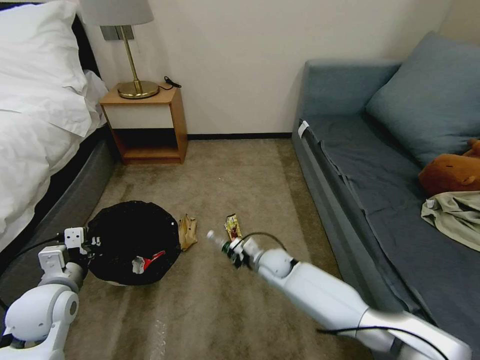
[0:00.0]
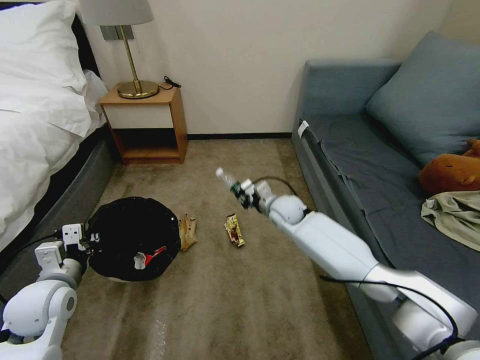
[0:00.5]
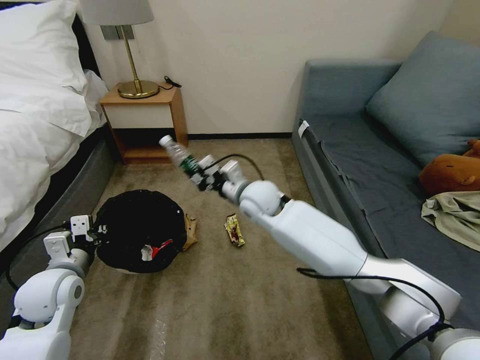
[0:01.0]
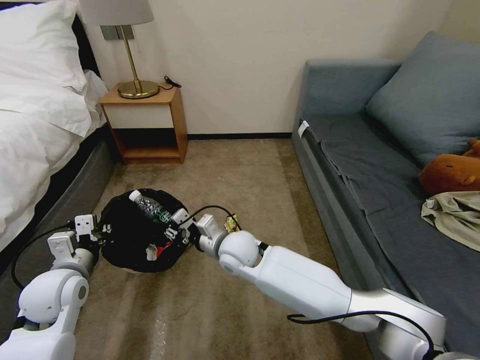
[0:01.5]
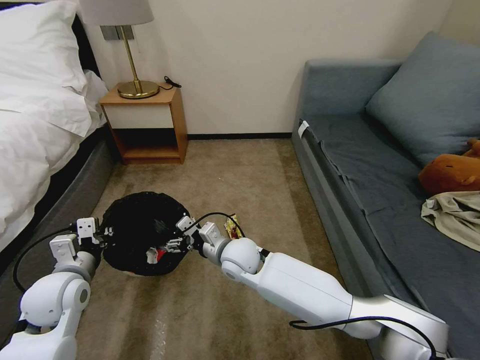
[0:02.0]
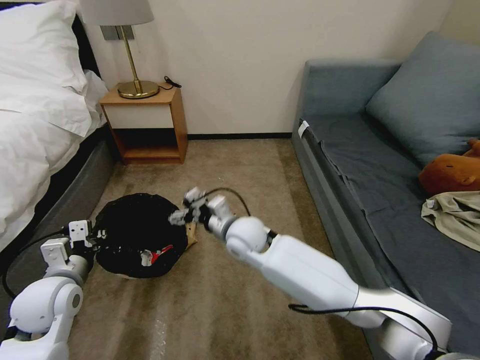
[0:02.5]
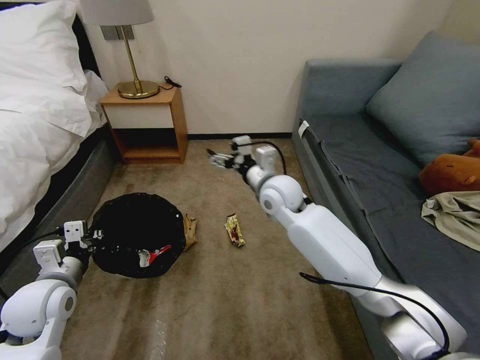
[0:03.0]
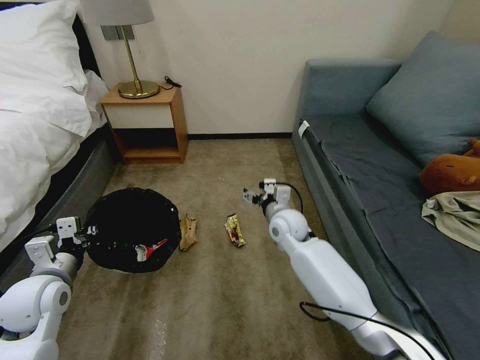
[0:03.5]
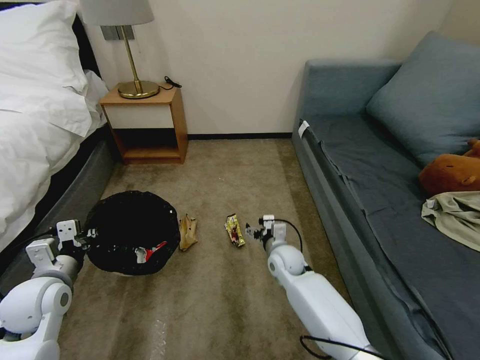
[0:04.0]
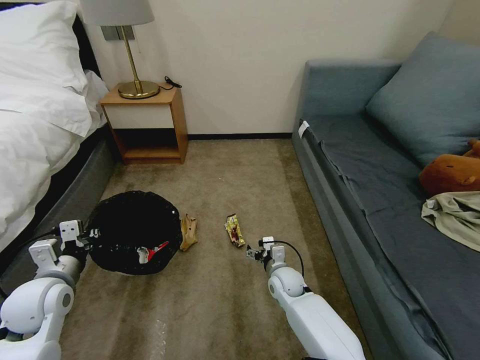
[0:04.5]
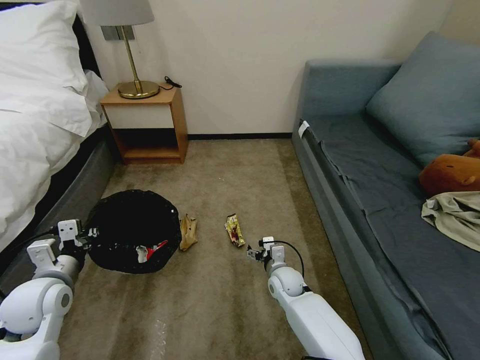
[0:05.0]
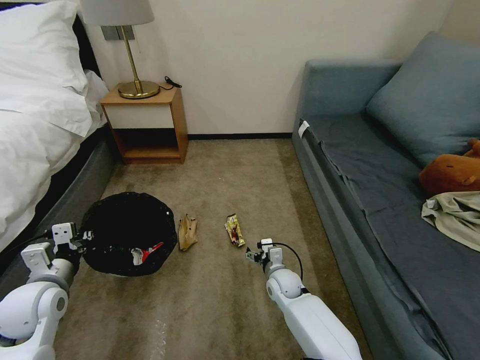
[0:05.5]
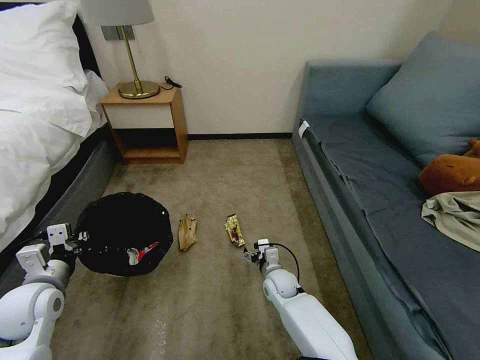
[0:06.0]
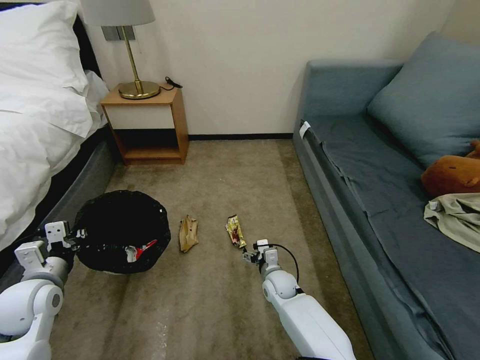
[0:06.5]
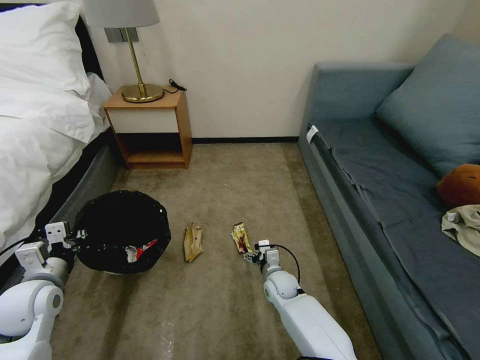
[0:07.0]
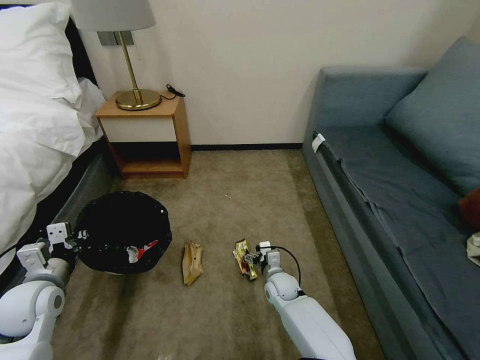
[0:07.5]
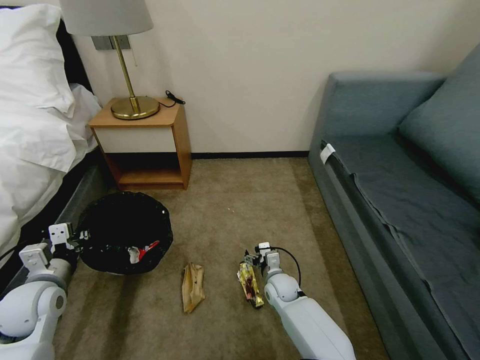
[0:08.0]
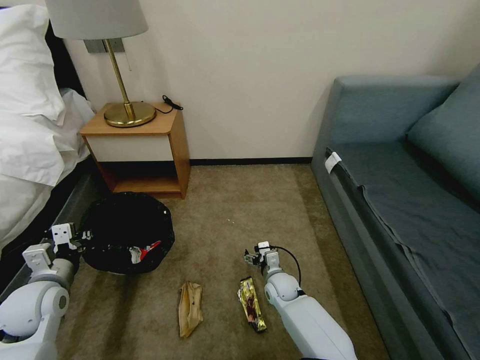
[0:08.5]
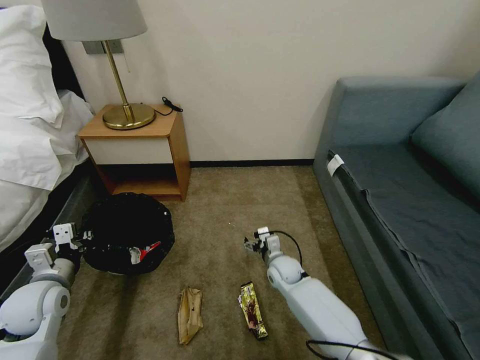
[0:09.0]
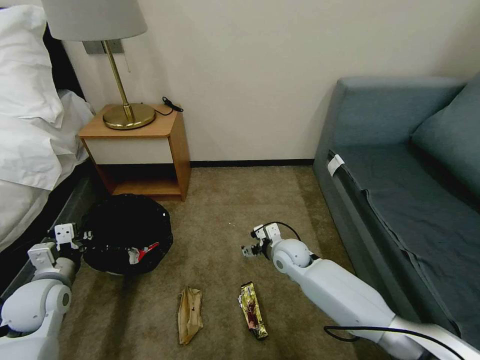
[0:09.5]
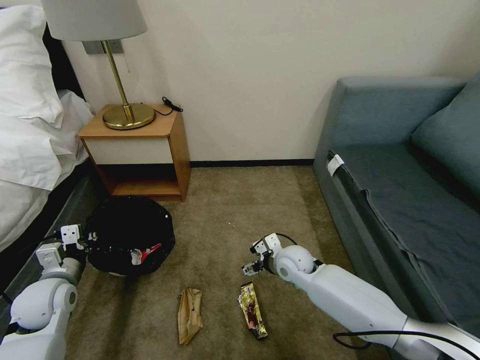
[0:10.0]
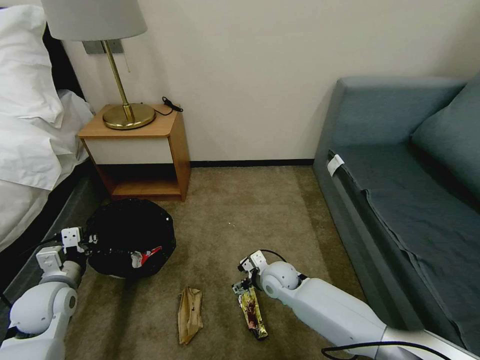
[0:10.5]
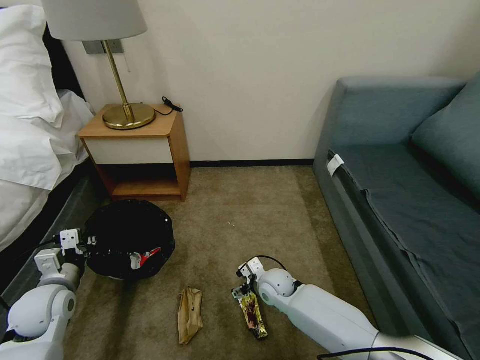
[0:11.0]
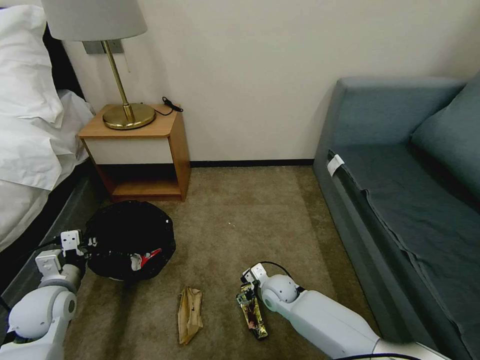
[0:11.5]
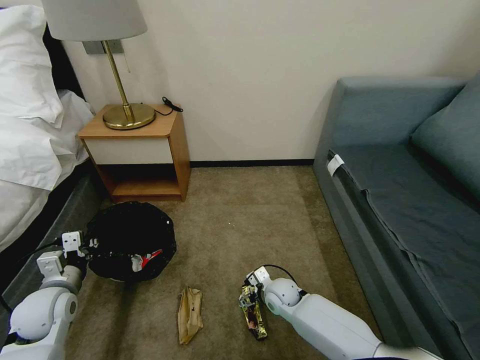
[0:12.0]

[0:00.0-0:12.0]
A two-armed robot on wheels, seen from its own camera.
Task of the whole recording: Pick up the trash bin, then pick up the garbage on the floor and place it into the trash bin.
0:00.0 to 0:02.0: The right gripper moves upward and to the left, about 15 cm, and opens its fingers.
0:02.0 to 0:04.0: The right gripper shifts approximately 15 cm to the right and downward.
0:04.0 to 0:06.0: The right gripper shifts roughly 5 cm downward.
0:08.0 to 0:10.0: The right gripper travels upward by approximately 10 cm.
0:10.0 to 0:12.0: The right gripper is displaced downward by approximately 10 cm.

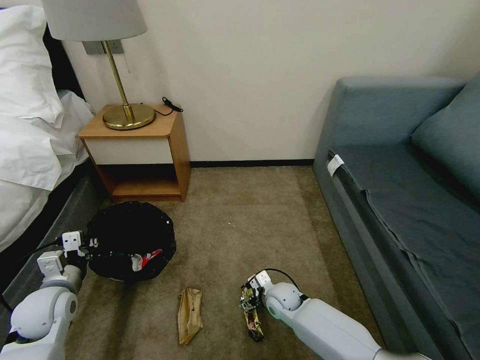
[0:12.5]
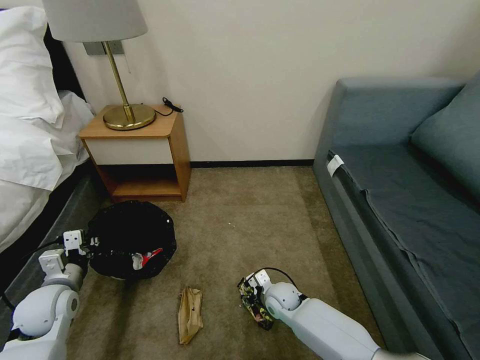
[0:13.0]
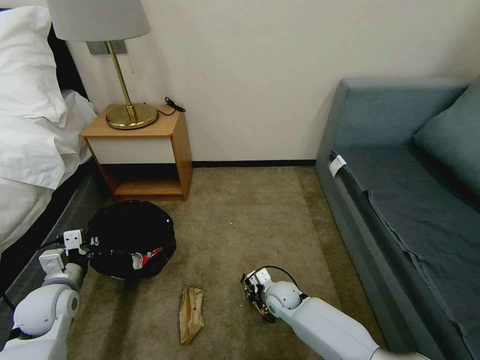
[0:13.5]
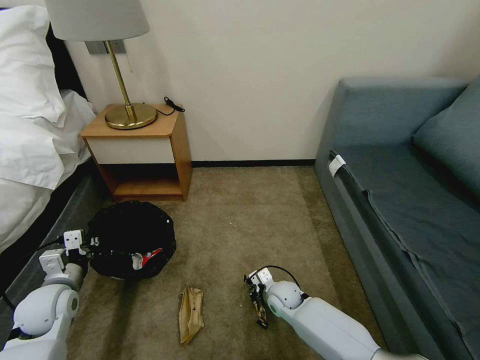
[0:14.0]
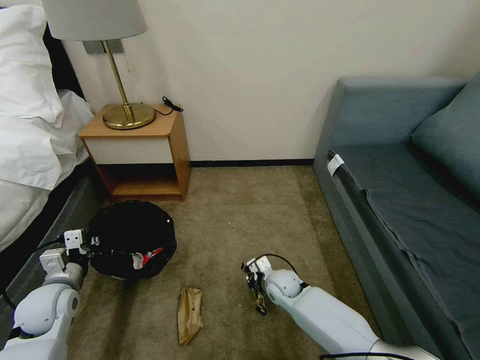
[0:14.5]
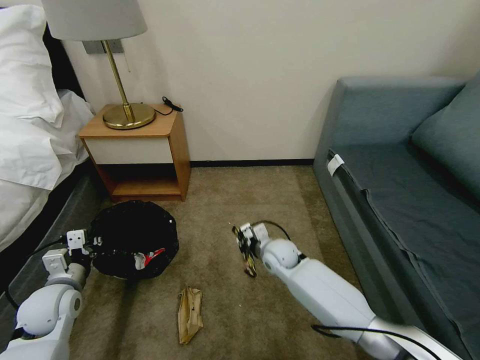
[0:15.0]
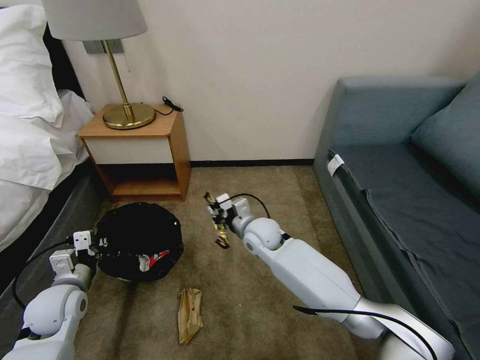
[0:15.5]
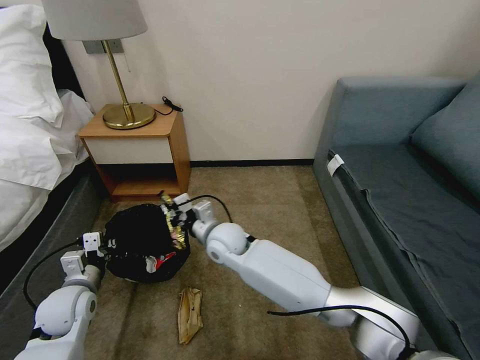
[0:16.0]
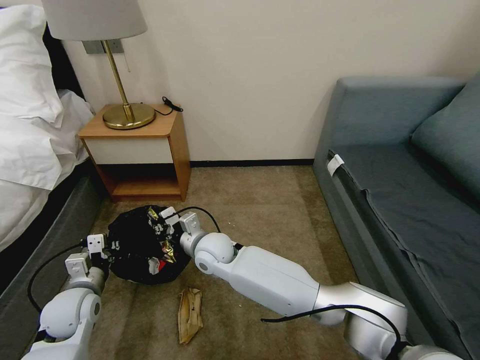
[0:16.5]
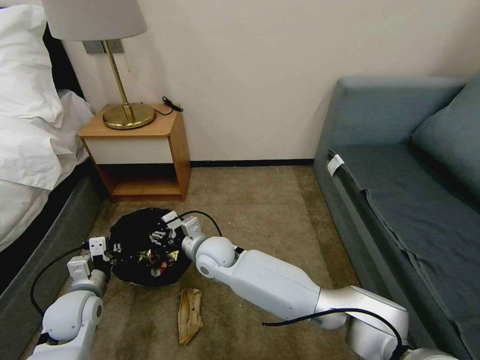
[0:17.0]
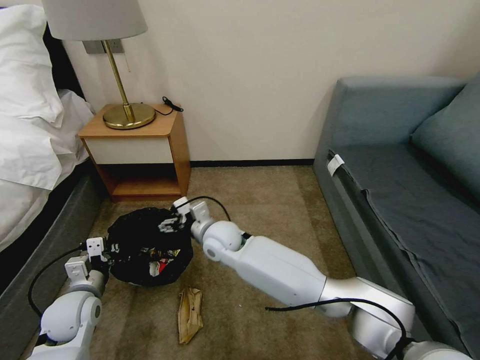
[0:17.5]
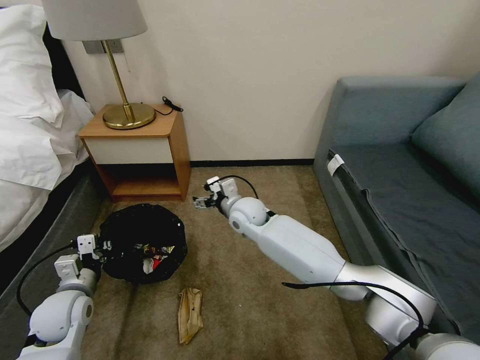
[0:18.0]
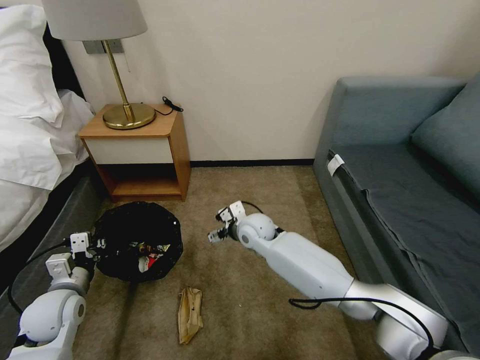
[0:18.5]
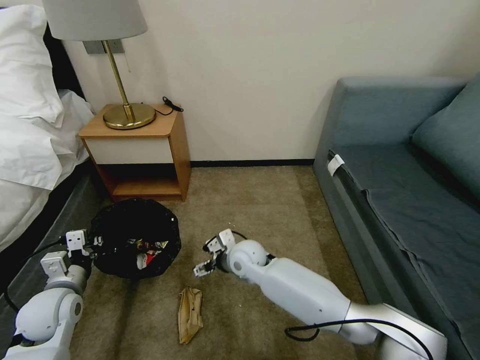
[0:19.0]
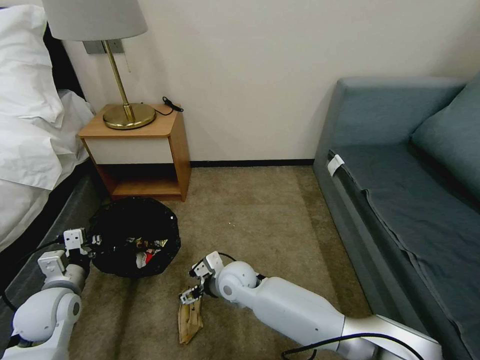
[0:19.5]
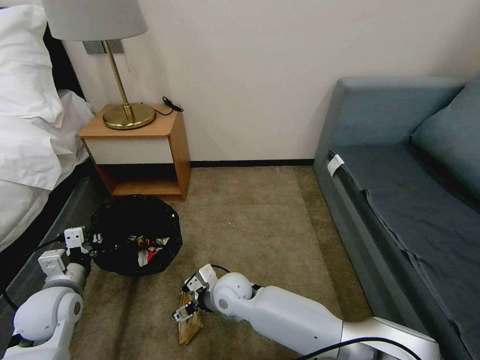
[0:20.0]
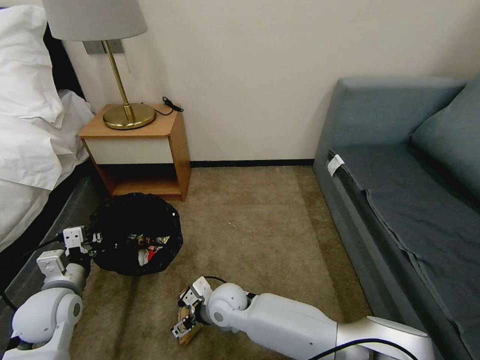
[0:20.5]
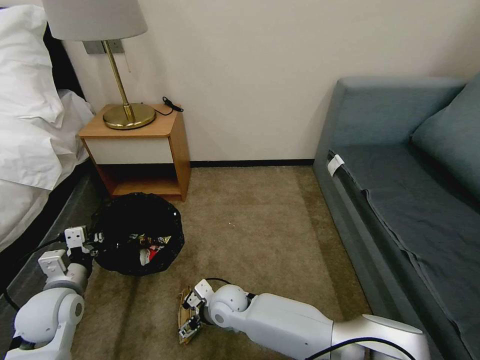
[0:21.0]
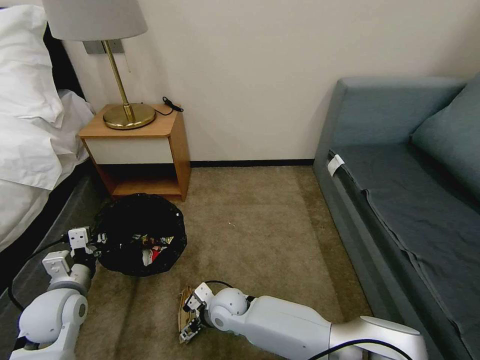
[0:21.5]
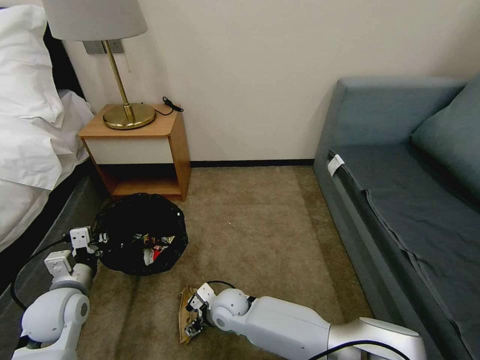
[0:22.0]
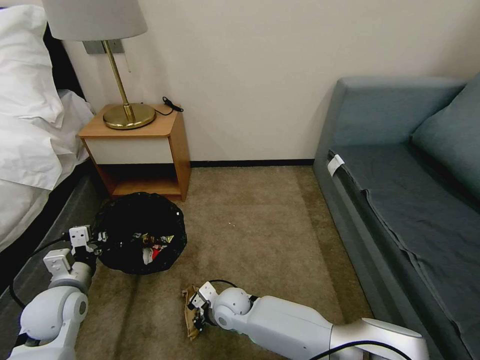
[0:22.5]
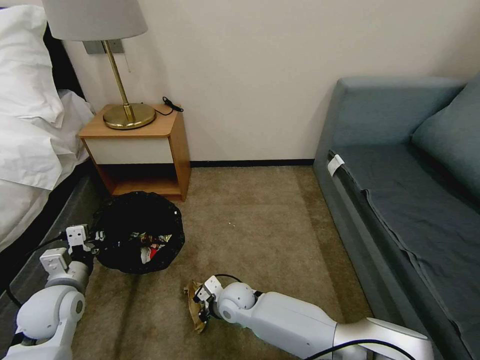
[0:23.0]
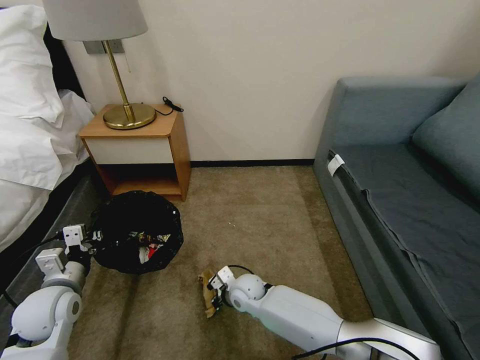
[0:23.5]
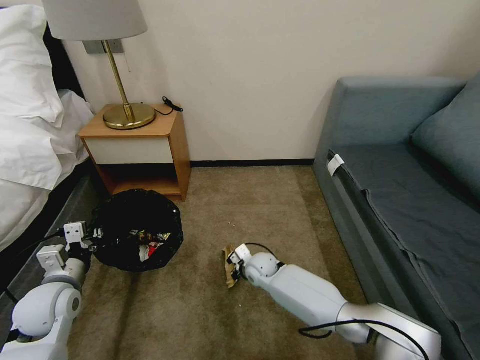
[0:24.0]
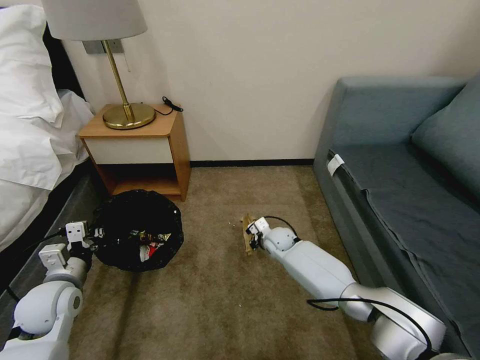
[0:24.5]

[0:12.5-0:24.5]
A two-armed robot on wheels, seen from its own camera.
Task of the whole recording: Pick up the trash bin, then pick up the garbage on the floor and place it into the trash bin.
0:12.5 to 0:14.5: The right gripper closes.
0:14.5 to 0:16.5: The right gripper is displaced to the left and upward by approximately 25 cm.
0:16.5 to 0:18.5: The right gripper moves to the right and forward, some 15 cm, and opens.
0:18.5 to 0:20.5: The right gripper moves backward, downward and to the left, approximately 20 cm.
0:20.5 to 0:22.5: The right gripper closes.
0:22.5 to 0:24.5: The right gripper is displaced forward and to the right by some 25 cm.

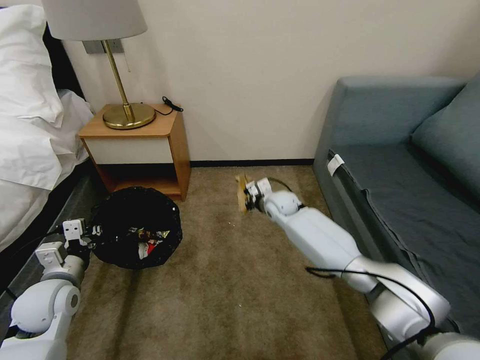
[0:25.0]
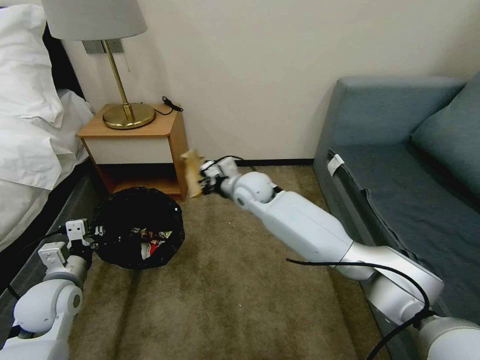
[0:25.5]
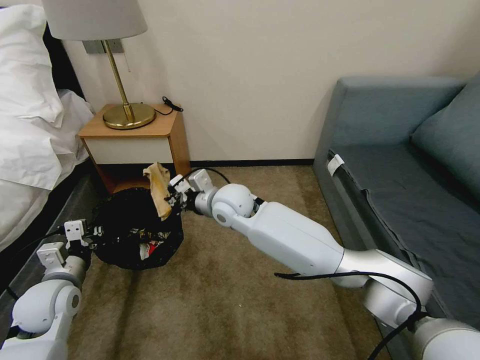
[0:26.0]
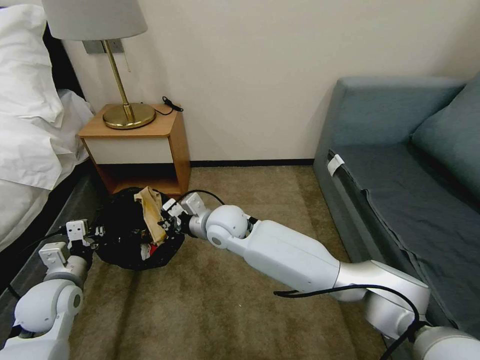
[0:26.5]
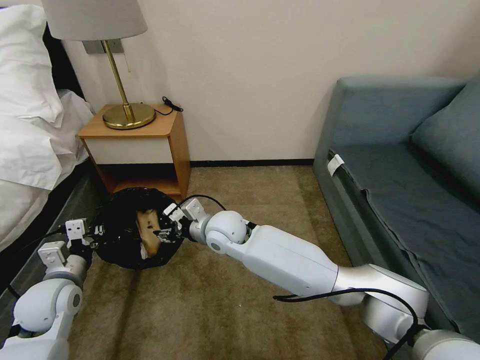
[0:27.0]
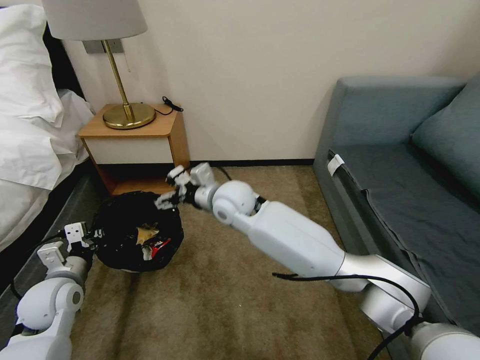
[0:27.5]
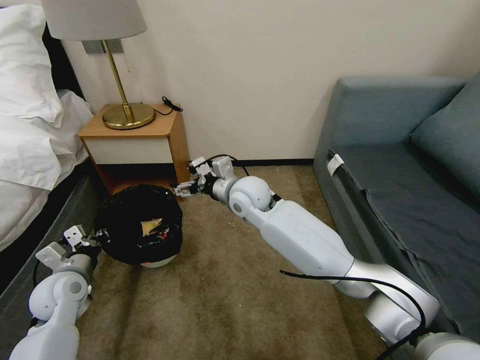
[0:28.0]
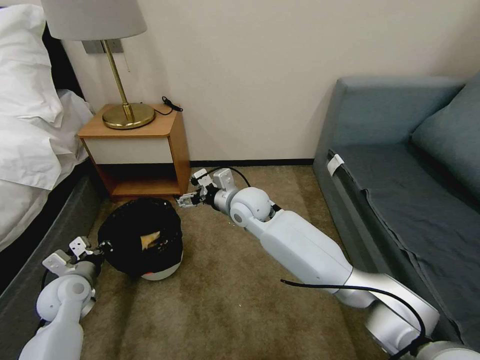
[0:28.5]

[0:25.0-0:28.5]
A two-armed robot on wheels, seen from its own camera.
Task of the whole recording: Pick up the trash bin, then pick up the garbage on the floor and place it into the trash bin.
0:25.0 to 0:27.0: The right gripper shifts about 20 cm to the left and backward, and opens up.
0:27.0 to 0:28.5: The left gripper is displaced downward by approximately 5 cm. The right gripper heads to the right, covering approximately 5 cm, and opens its fingers.
